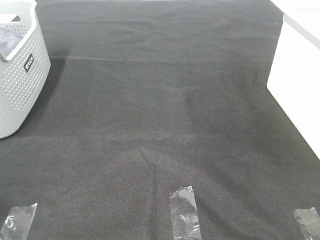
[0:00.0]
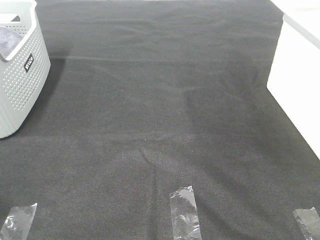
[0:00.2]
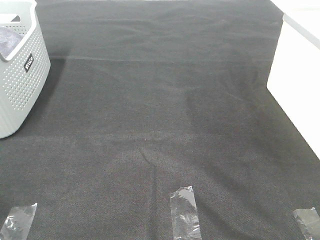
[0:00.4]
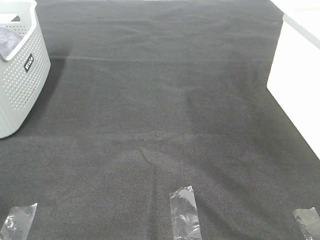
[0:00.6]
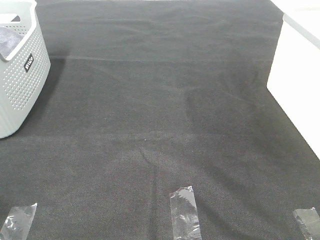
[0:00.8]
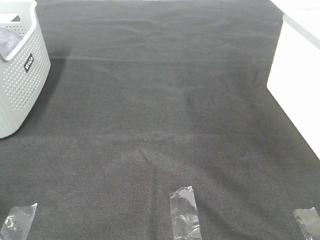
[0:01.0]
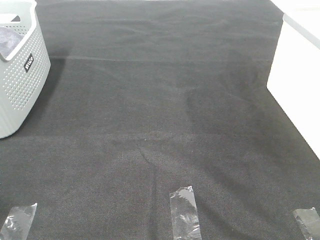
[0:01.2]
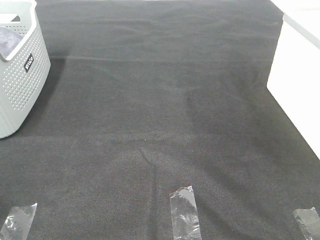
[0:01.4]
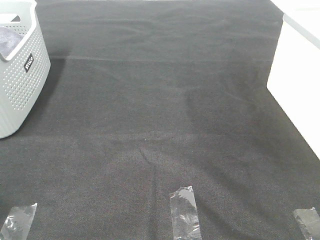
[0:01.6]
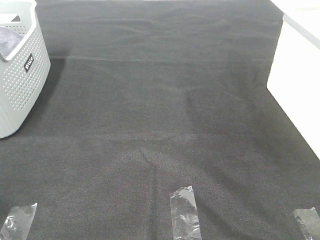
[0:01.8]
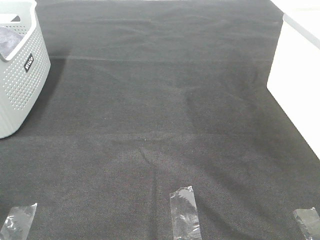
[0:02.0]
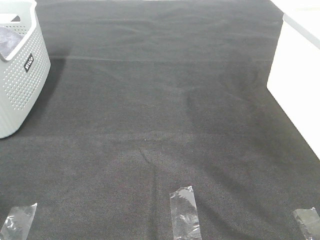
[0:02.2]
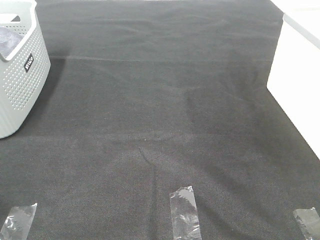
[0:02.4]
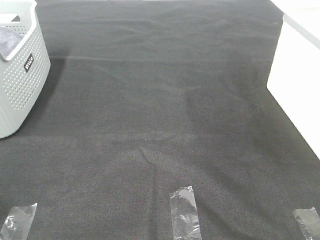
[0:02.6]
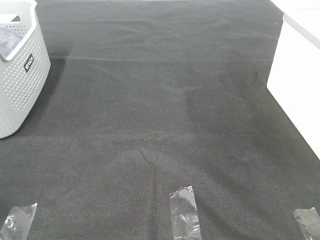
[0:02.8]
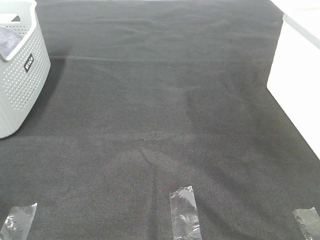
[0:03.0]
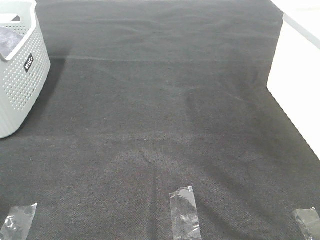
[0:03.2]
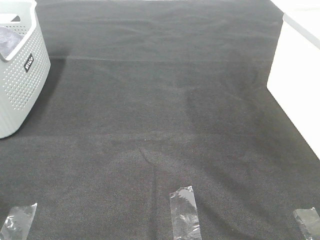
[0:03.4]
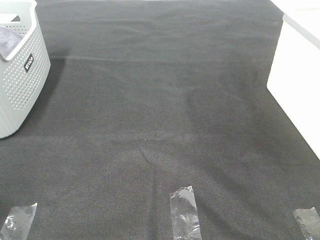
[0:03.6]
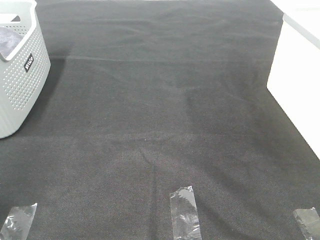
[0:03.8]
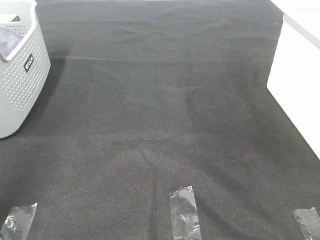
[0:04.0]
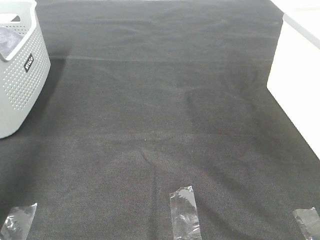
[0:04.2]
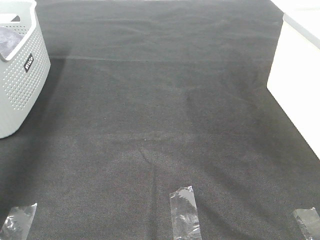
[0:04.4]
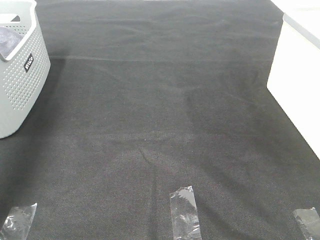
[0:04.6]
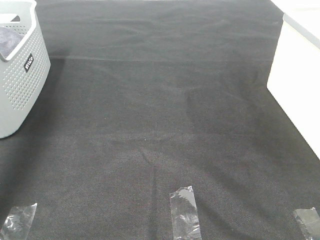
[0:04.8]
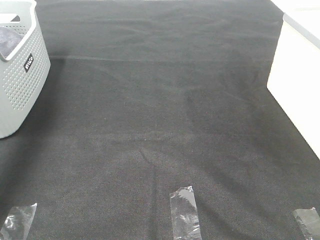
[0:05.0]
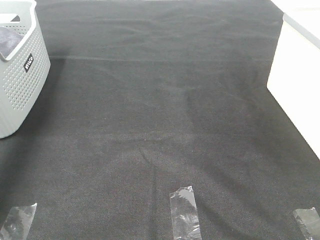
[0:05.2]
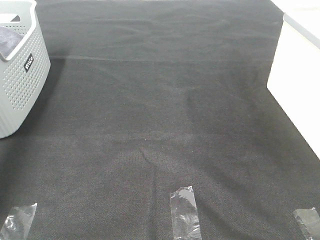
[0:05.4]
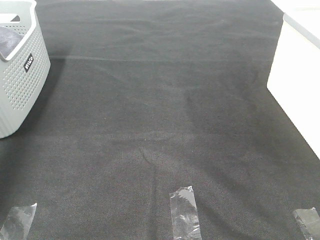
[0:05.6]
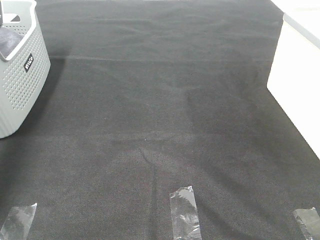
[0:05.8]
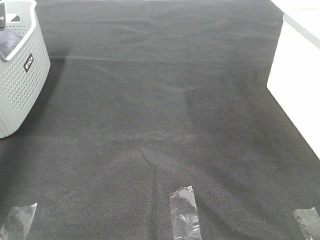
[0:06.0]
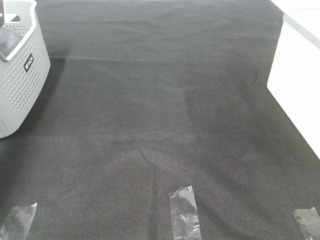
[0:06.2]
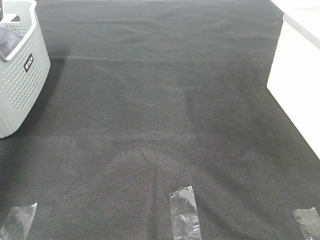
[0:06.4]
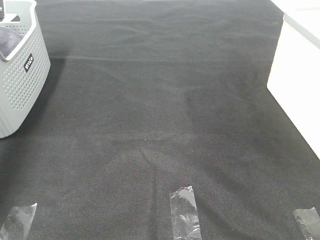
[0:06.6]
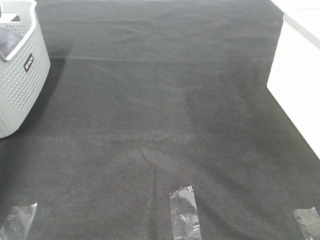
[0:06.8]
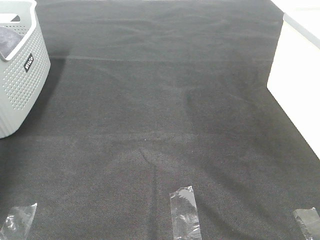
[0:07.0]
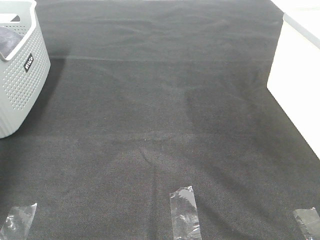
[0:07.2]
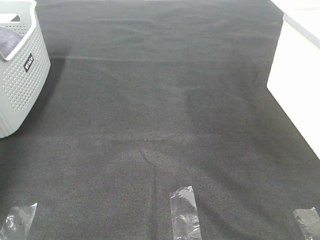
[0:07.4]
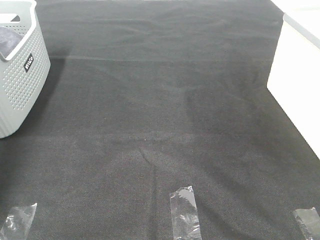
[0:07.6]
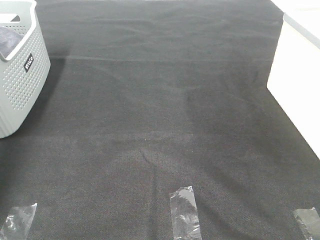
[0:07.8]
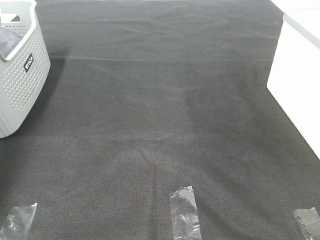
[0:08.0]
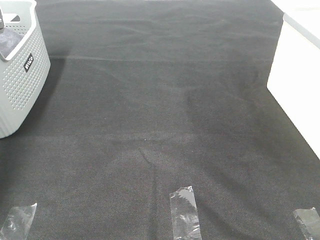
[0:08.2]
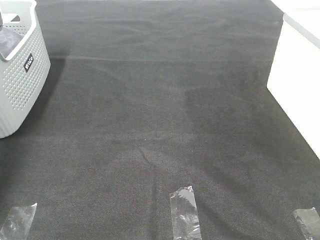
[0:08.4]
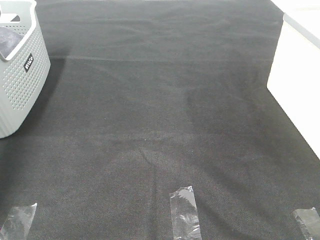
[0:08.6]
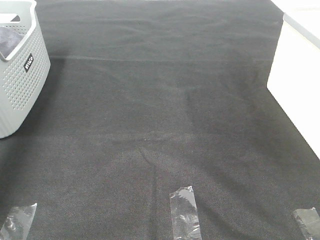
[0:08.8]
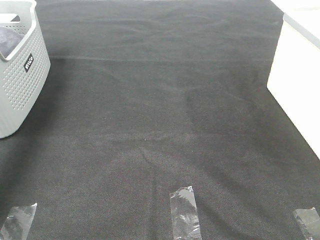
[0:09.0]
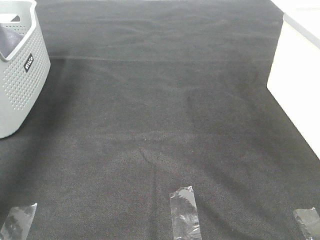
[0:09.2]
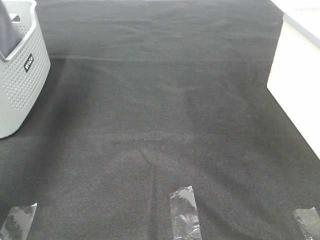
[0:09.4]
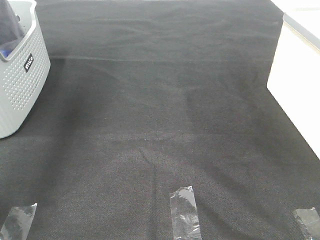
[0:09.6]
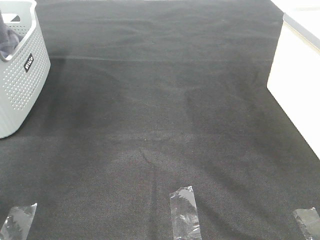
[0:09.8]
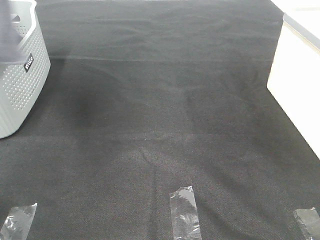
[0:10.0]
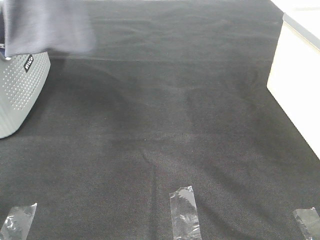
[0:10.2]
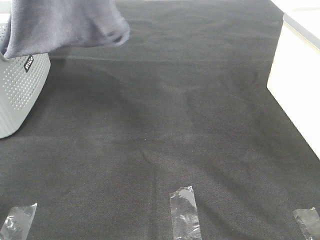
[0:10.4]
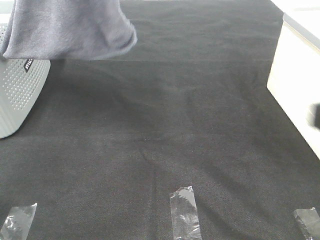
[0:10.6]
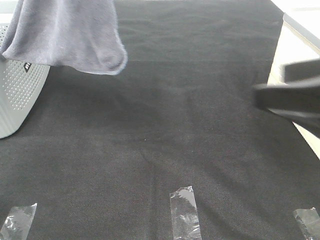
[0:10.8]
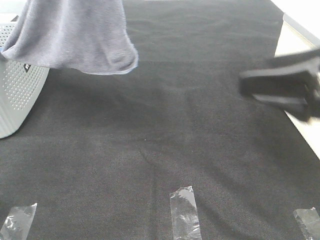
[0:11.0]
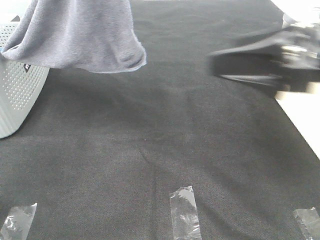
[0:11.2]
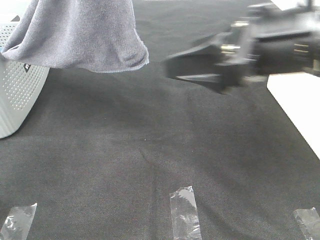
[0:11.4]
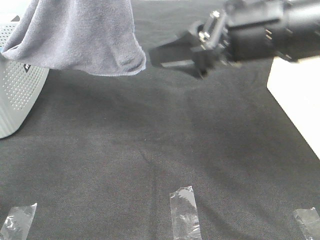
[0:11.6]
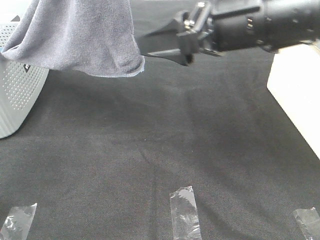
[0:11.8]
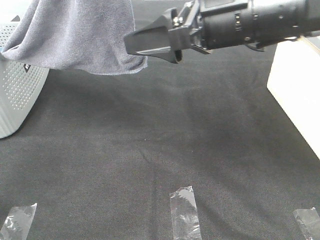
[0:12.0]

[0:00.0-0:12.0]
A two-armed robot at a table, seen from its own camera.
Task of the whole recording: Remove the towel and place it.
0:00.0 to 0:03.0: The two grippers keep their place.
0:03.0 to 0:04.4: The left gripper shifts approximately 30 cm forward and upward.
0:04.4 to 0:06.0: The left gripper goes some 30 cm forward and downward.
0:07.6 to 0:09.0: The left gripper goes about 15 cm upward and to the right, and closes up.
0:09.0 to 0:10.4: The left gripper moves to the right, backward and upward, roughly 35 cm, while the right gripper travels forward by about 5 cm.
0:10.4 to 0:12.0: The right gripper heads forward and to the left, covering some 30 cm.

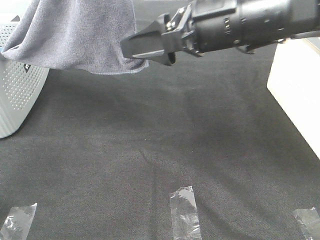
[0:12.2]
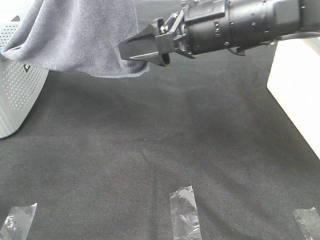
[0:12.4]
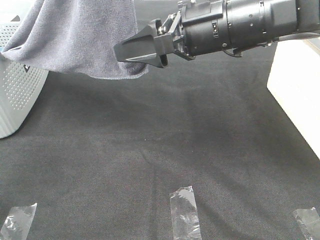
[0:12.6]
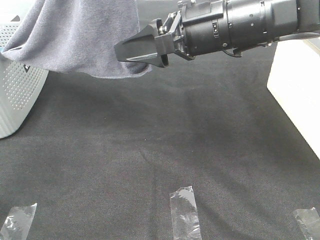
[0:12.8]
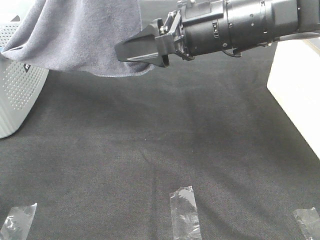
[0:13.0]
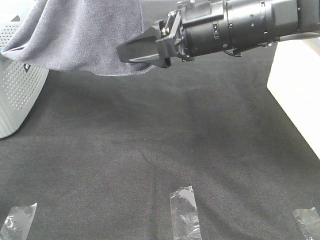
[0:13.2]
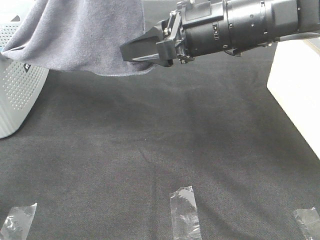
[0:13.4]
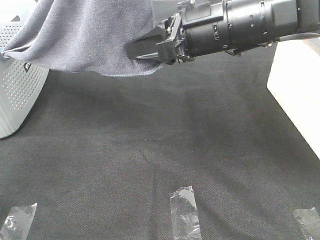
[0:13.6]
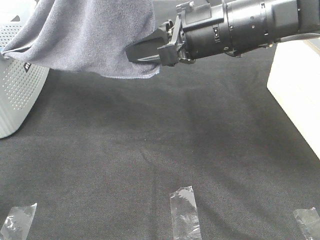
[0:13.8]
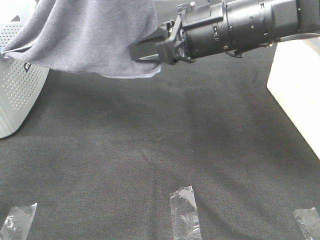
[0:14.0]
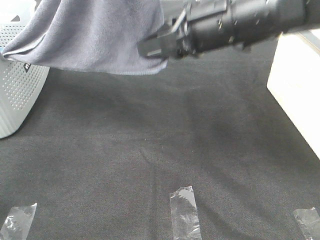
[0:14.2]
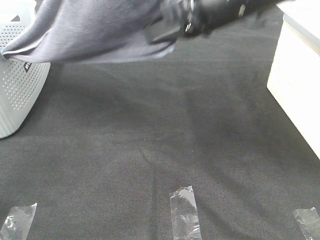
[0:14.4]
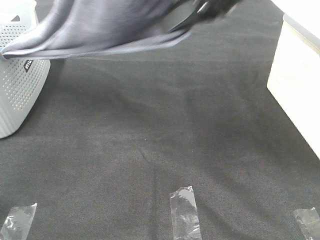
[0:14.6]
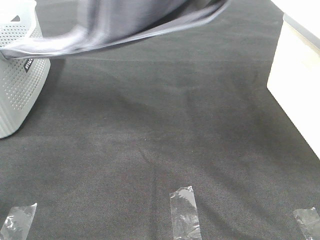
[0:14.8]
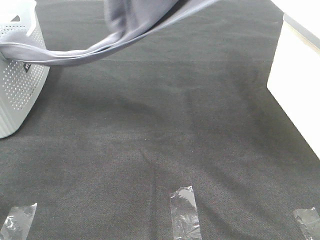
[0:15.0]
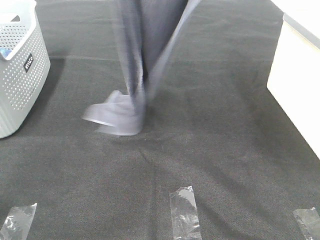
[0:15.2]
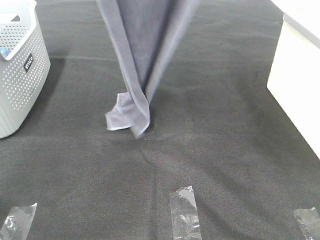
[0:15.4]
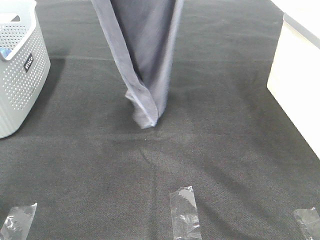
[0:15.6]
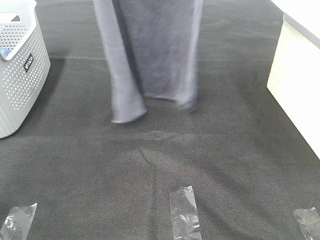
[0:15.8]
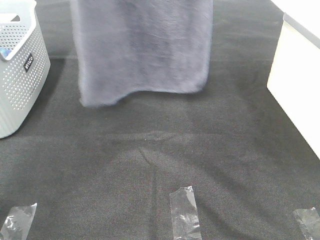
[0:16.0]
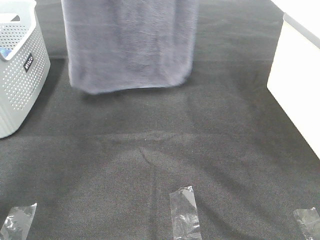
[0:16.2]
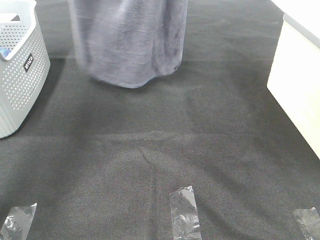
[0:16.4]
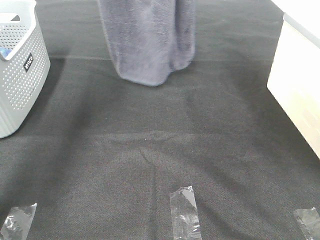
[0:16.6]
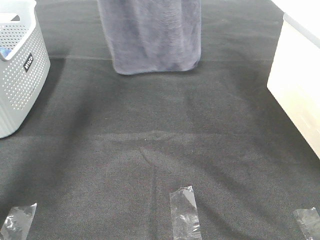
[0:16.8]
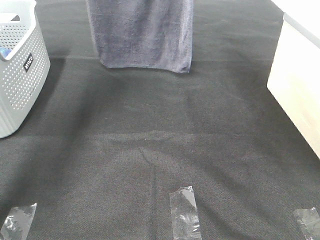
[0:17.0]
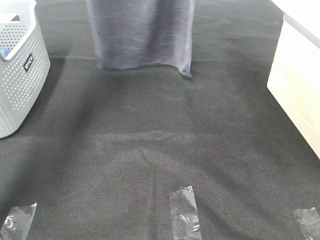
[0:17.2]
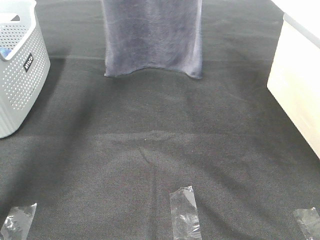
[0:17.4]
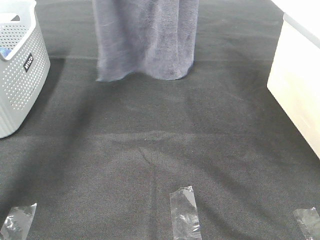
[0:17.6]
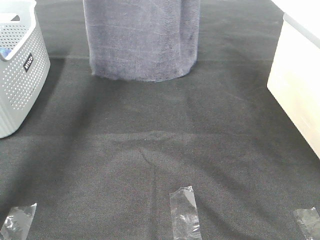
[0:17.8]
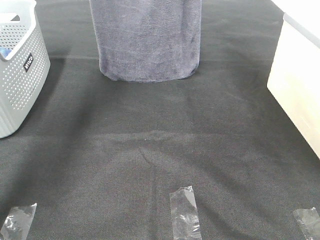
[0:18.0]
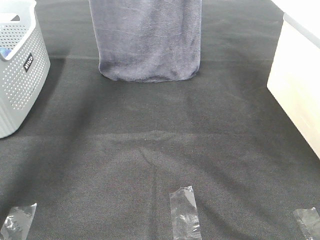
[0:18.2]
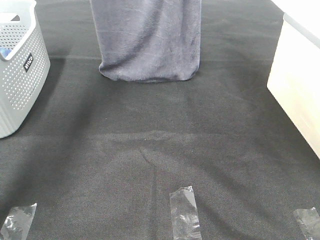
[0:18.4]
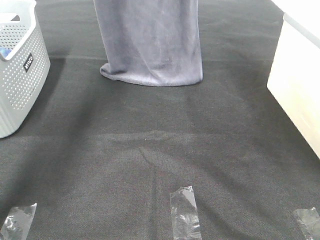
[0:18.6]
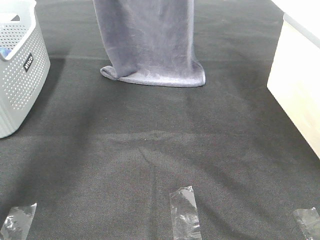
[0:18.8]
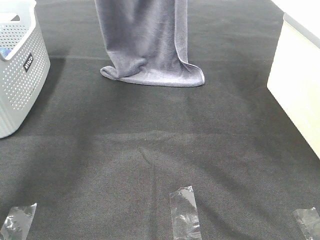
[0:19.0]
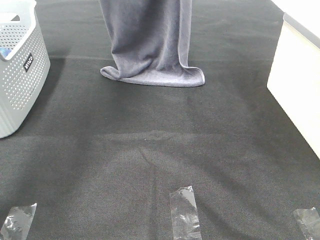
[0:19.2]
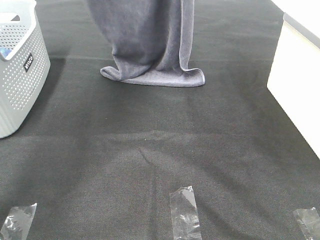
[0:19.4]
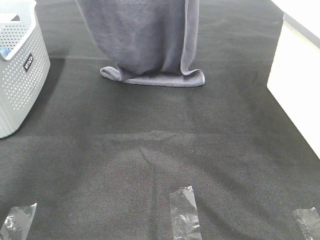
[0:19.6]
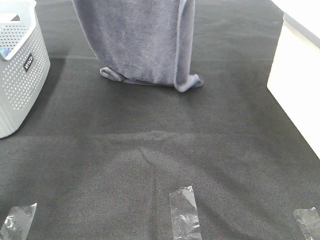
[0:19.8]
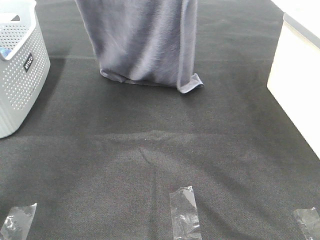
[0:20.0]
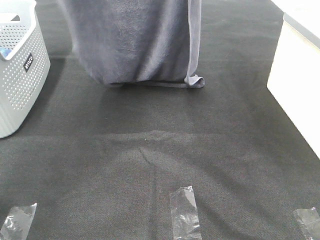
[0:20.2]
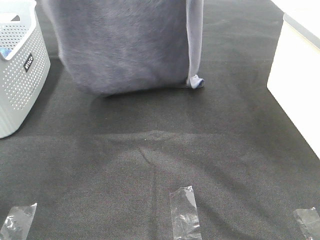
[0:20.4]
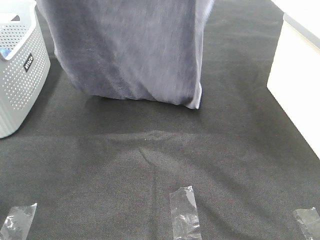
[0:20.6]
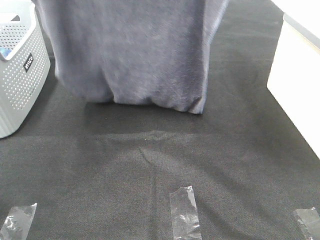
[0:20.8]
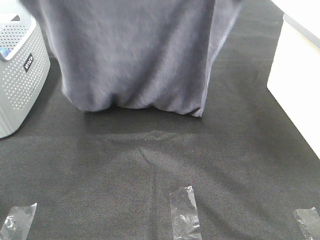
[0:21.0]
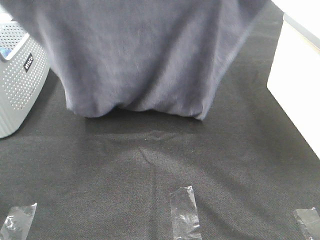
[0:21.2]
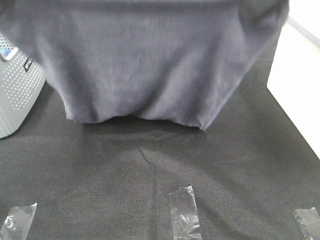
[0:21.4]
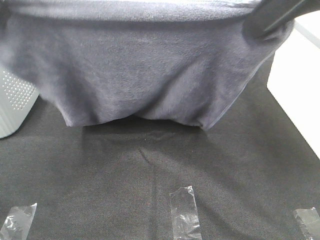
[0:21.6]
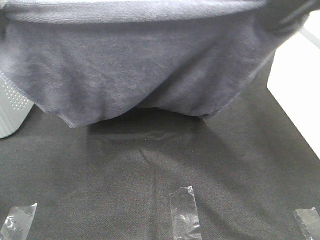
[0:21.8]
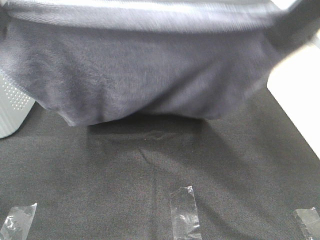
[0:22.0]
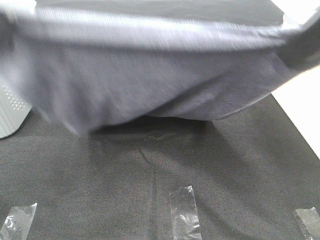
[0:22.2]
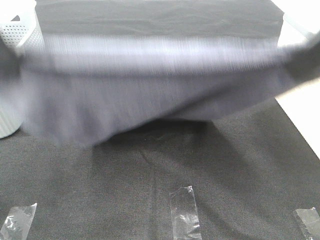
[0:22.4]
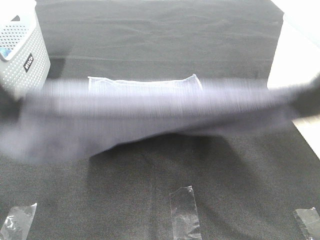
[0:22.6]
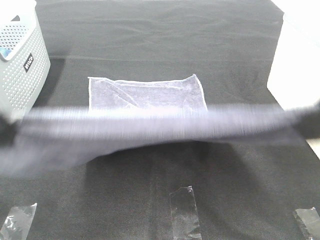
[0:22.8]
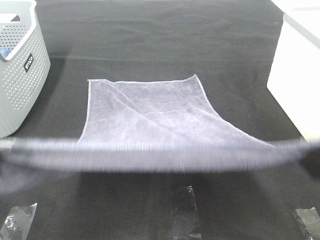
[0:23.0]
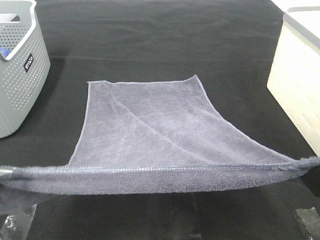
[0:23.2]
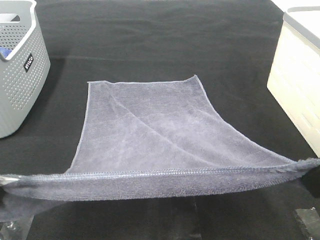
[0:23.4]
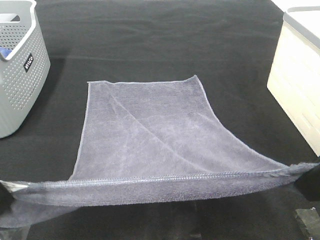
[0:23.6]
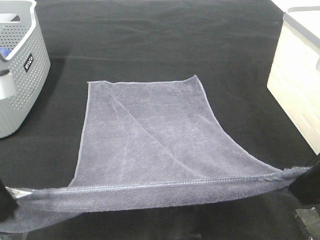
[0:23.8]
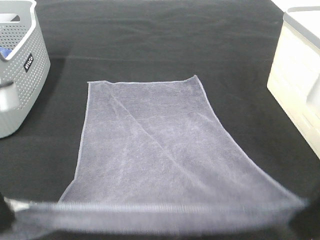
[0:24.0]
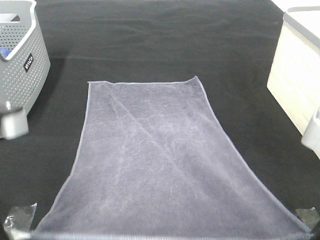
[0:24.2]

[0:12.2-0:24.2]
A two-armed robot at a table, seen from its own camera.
Task of the whole recording: Remove the towel and place it.
Step, 0:12.2 to 0:15.2: Right hand: grab a corner of the grey towel and straighten it.
Step, 0:15.4 to 0:22.0: Left hand: spread the grey towel flat on the table.
Step, 0:15.4 to 0:22.0: Right hand: spread the grey towel flat on the table.
0:12.2 to 0:13.8: The right gripper closes up.
0:13.8 to 0:15.2: The left gripper shifts by roughly 5 cm, while the right gripper moves upward, roughly 25 cm.
0:15.2 to 0:16.6: The right gripper shifts about 10 cm forward. The left gripper moves forward, some 20 cm.
0:16.6 to 0:18.2: There are only small adjustments of the grippers.
0:18.2 to 0:19.8: The grippers both shift backward by some 10 cm.
0:19.8 to 0:21.2: The right gripper shifts roughly 10 cm backward; the left gripper heads backward and downward, covering approximately 15 cm.
0:21.2 to 0:22.6: The two grippers go some 15 cm backward and downward.
0:22.6 to 0:24.2: The grippers both shift downward by roughly 10 cm.
